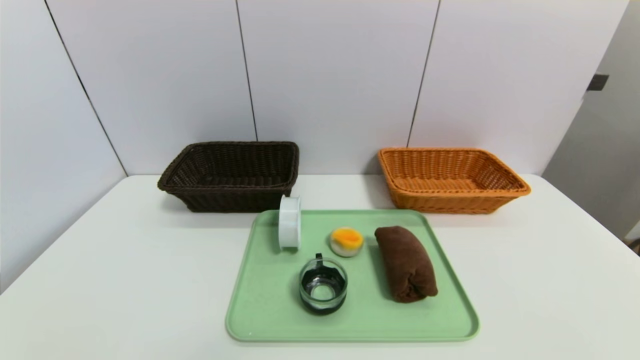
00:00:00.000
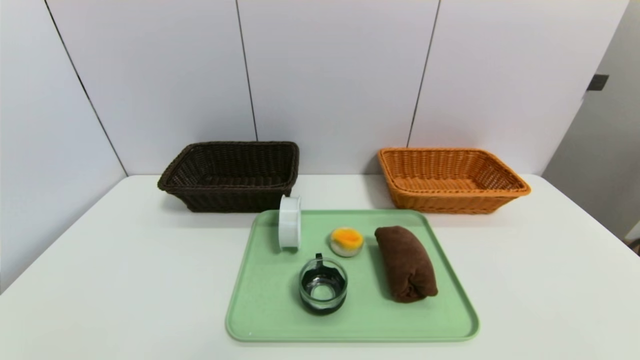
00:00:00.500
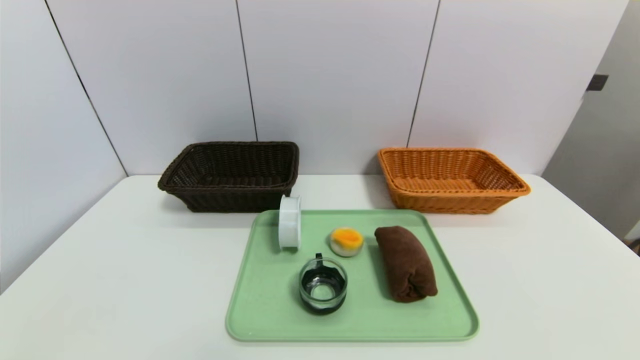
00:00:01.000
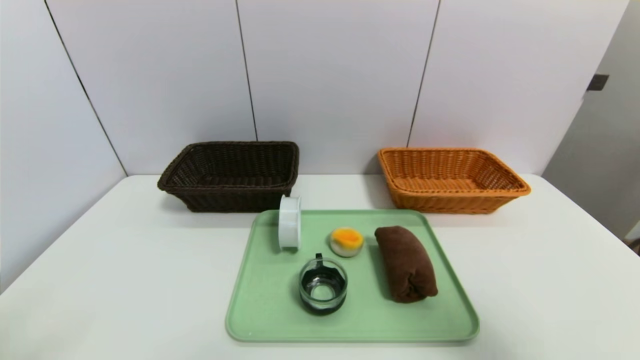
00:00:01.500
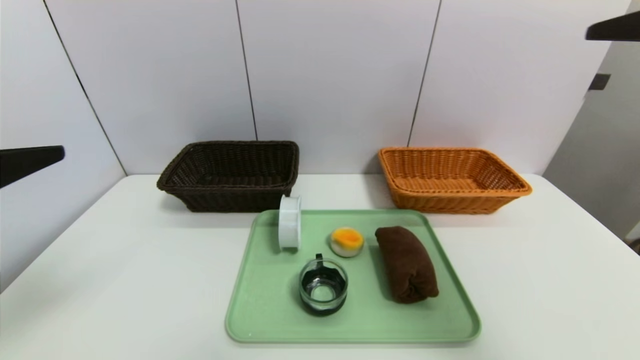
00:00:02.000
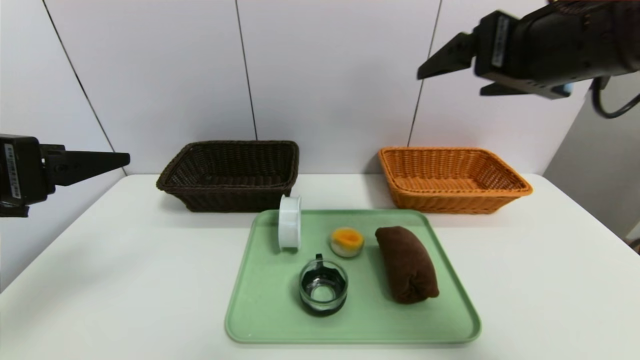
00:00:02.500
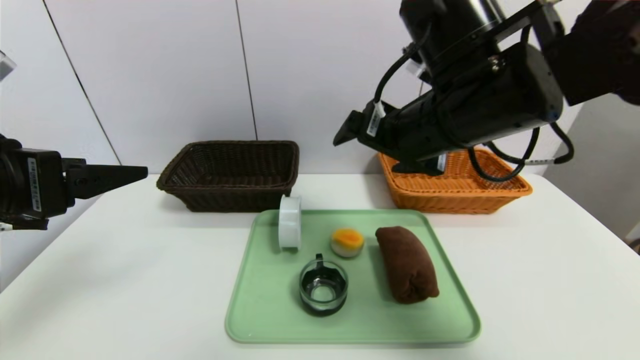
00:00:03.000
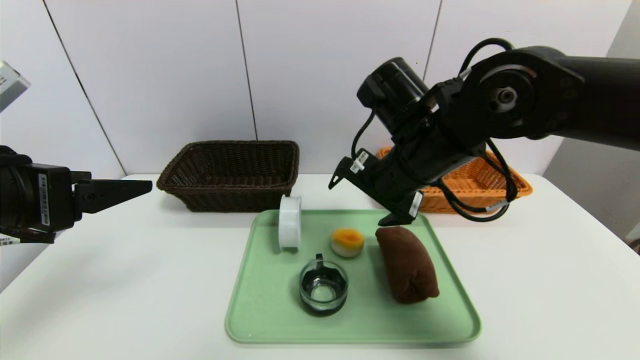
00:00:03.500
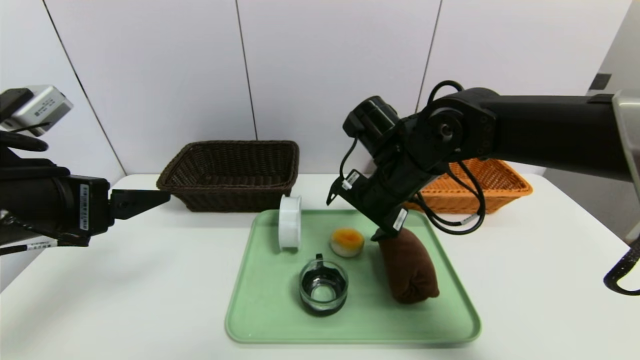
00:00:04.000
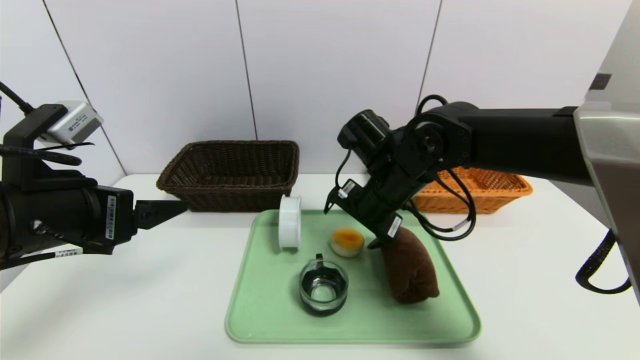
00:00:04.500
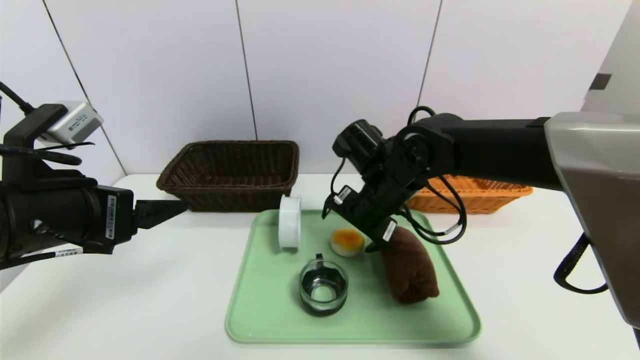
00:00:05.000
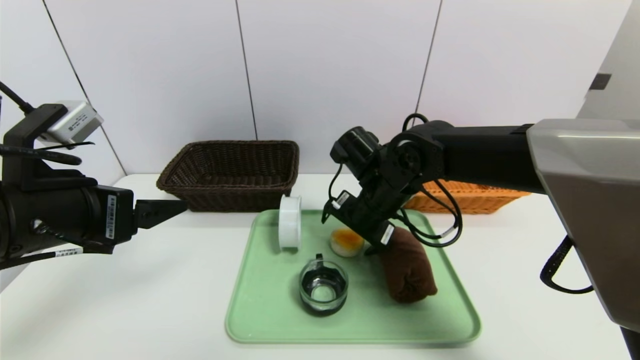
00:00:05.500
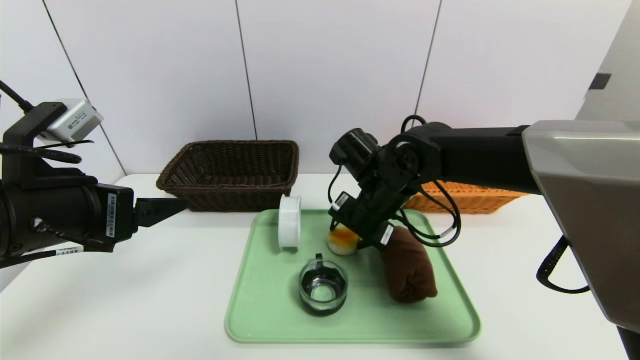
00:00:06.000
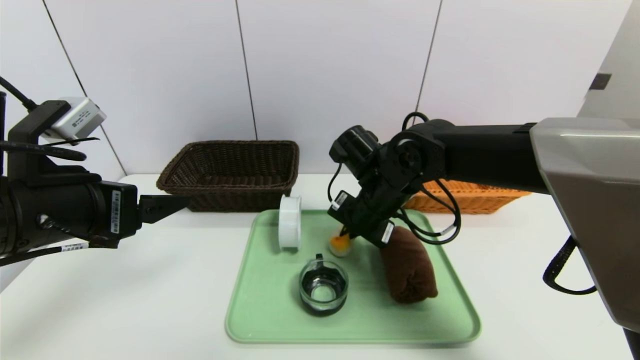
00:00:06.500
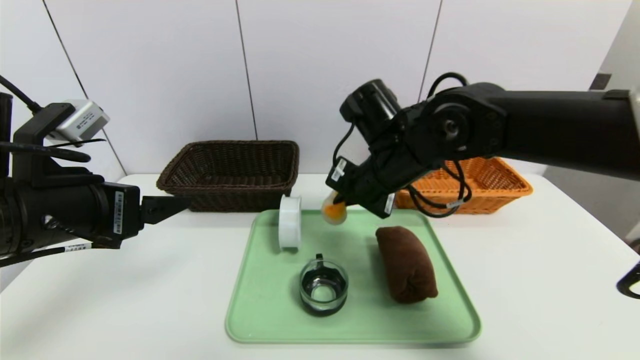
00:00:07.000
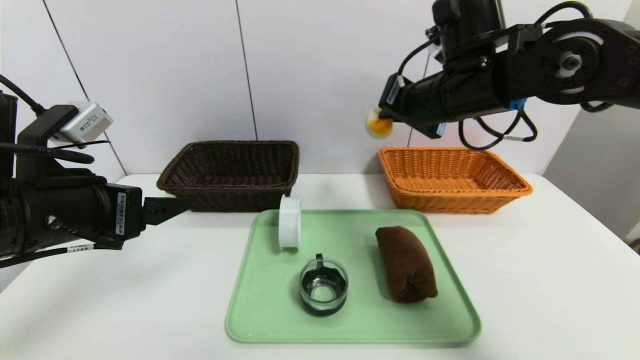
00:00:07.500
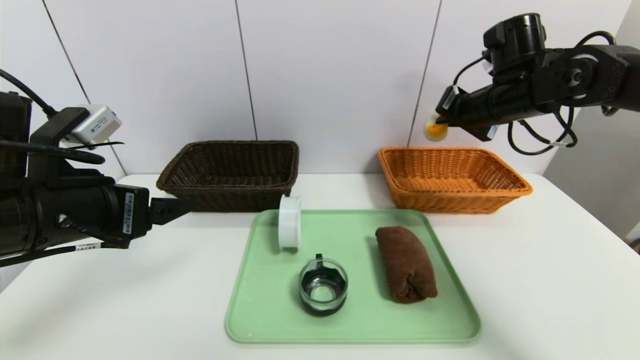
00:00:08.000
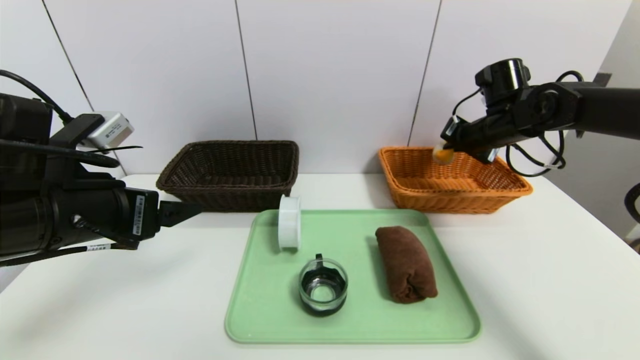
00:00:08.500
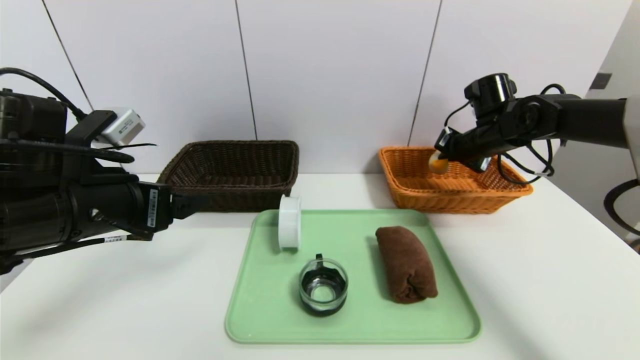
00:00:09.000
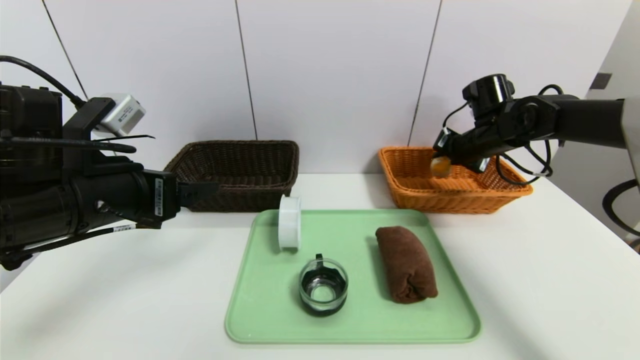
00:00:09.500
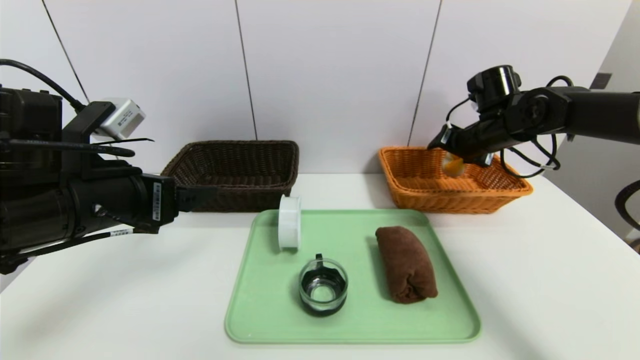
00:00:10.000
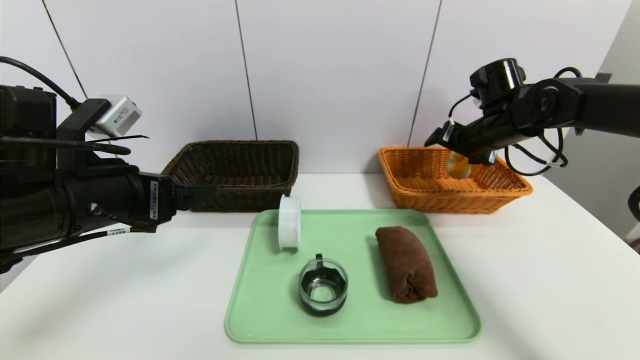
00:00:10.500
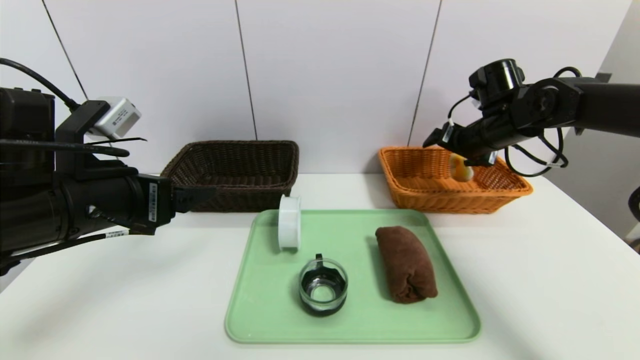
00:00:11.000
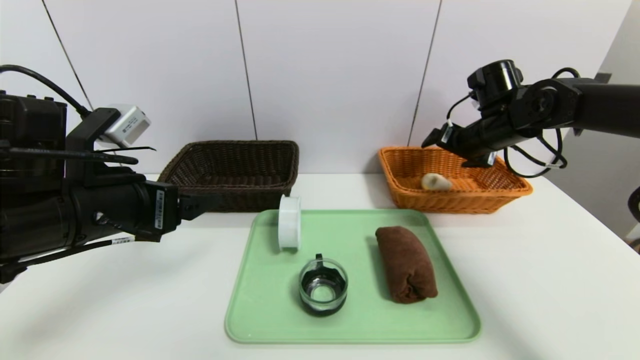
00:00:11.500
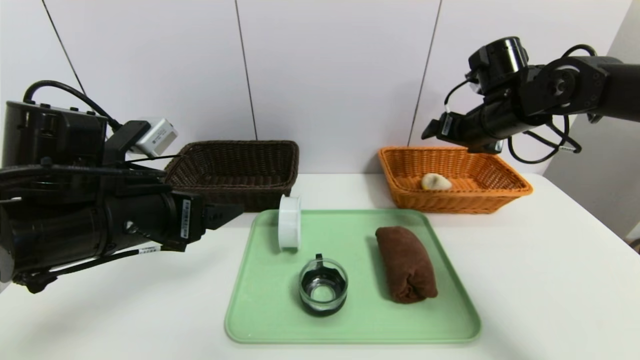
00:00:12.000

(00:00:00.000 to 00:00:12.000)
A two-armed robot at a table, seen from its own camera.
Task of the whole recording: place the food in the right basket with the right gripper, and place the non food items in the left basket with the left gripper.
Step, 00:00:00.000 - 00:00:11.500: Grasp the egg yolk pastry and put it in the right basket.
00:00:00.000 - 00:00:02.000: The grippers both shift upward and forward by about 30 cm.
00:00:02.000 - 00:00:04.000: The right gripper travels to the left, downward and forward by about 35 cm; the left gripper moves forward, about 5 cm.
00:00:04.000 - 00:00:06.000: The right gripper shifts by some 5 cm, and closes.
00:00:06.000 - 00:00:08.000: The right gripper moves to the right and upward, about 20 cm, and closes its fingers.
00:00:08.000 - 00:00:10.000: The right gripper is displaced downward by approximately 5 cm, and opens.
00:00:10.000 - 00:00:12.000: The right gripper ends up some 5 cm from where it was.

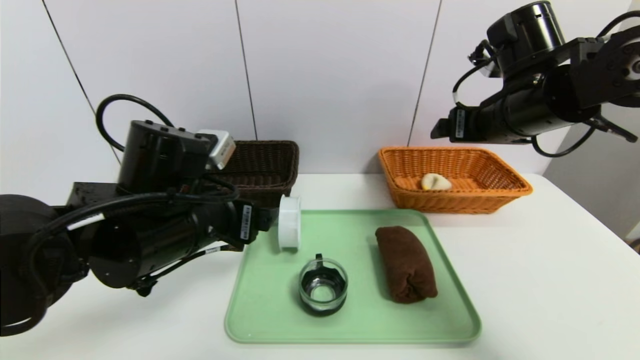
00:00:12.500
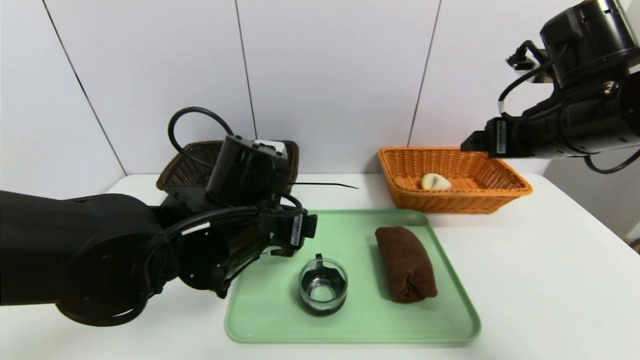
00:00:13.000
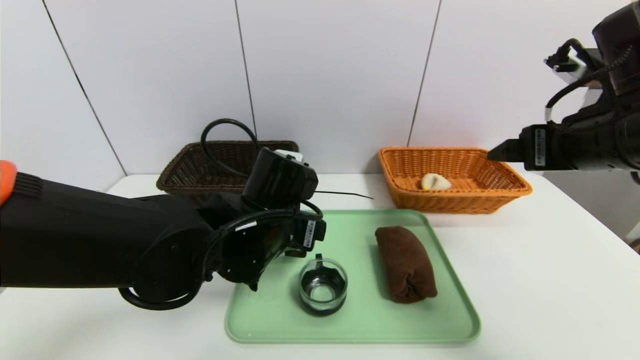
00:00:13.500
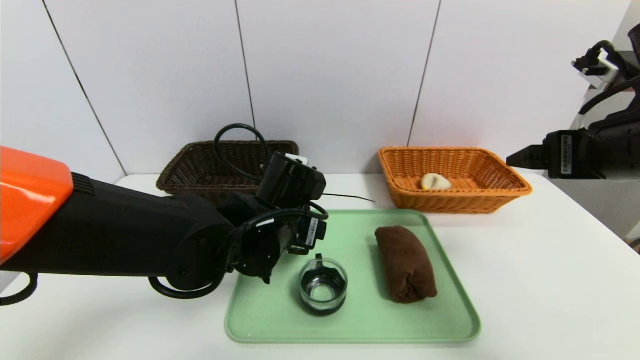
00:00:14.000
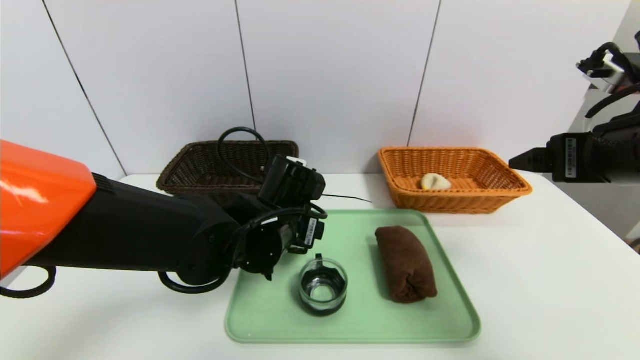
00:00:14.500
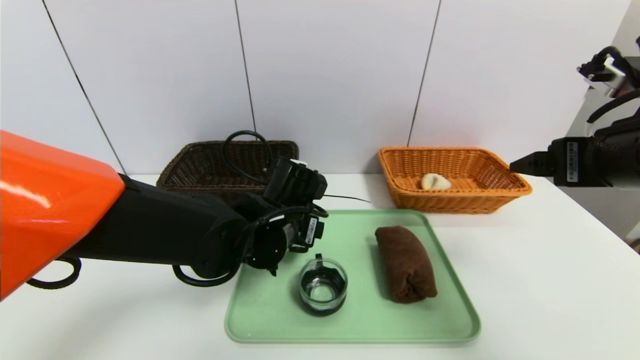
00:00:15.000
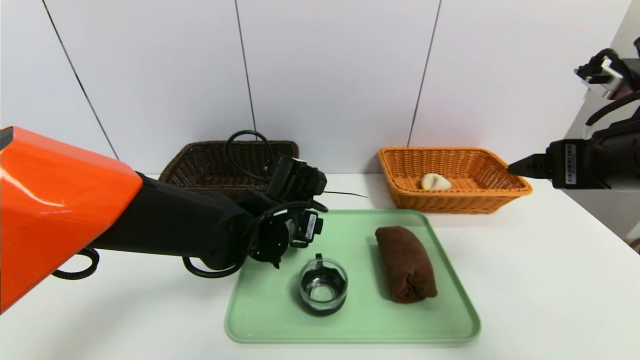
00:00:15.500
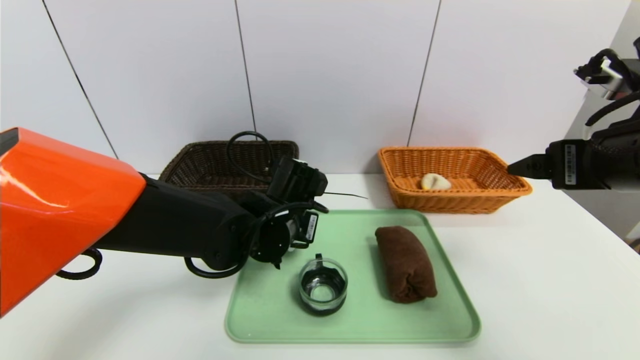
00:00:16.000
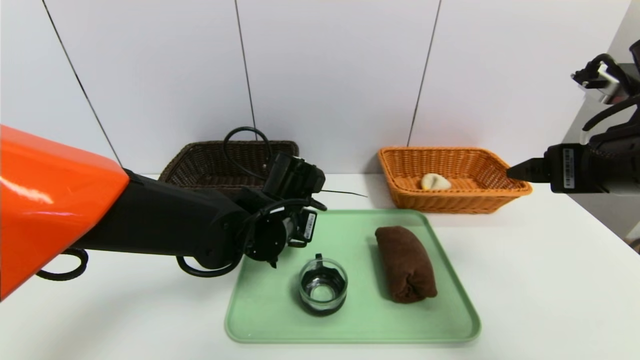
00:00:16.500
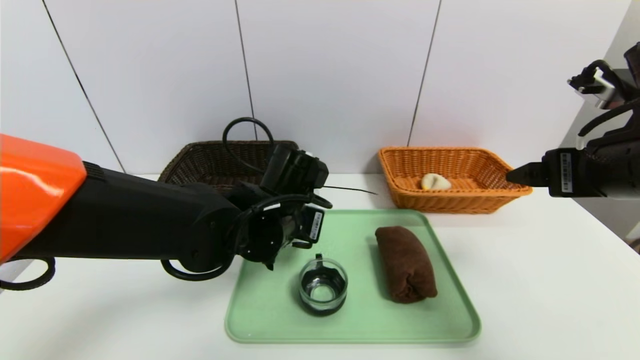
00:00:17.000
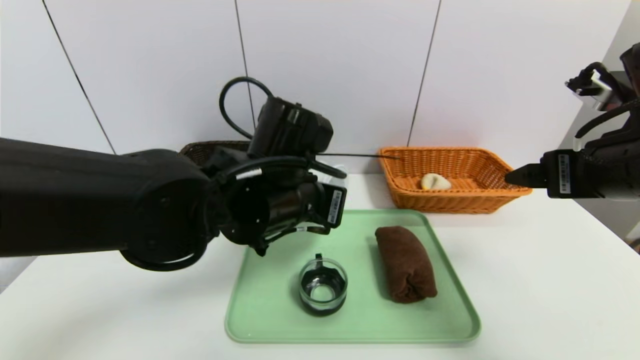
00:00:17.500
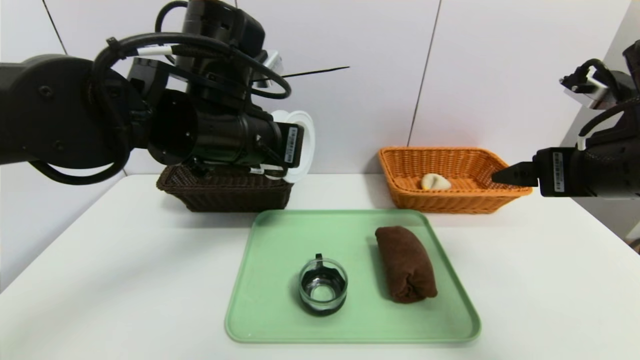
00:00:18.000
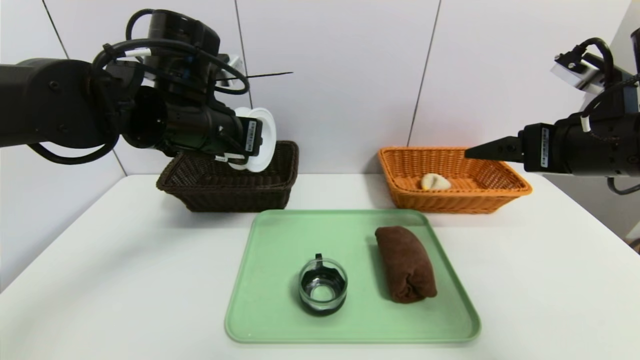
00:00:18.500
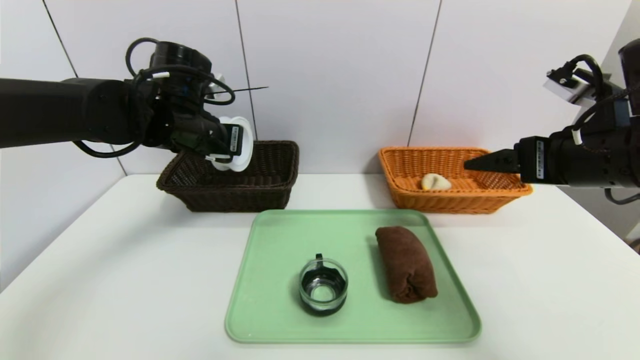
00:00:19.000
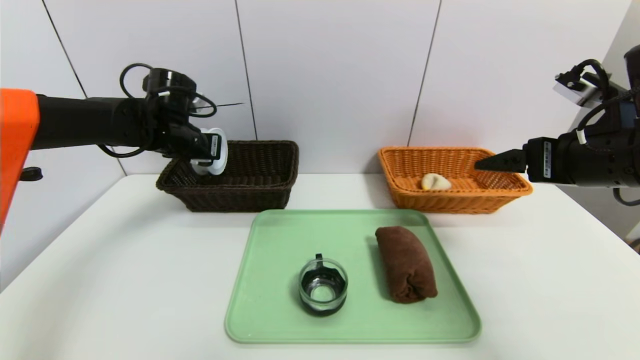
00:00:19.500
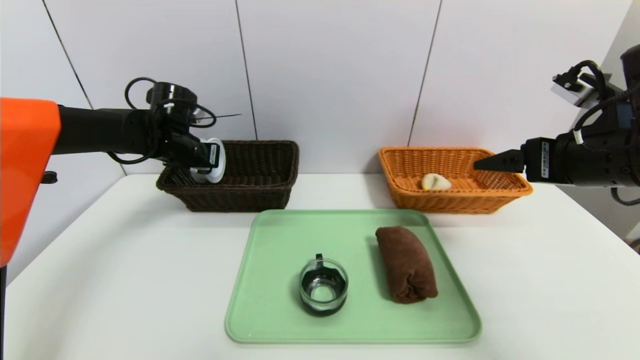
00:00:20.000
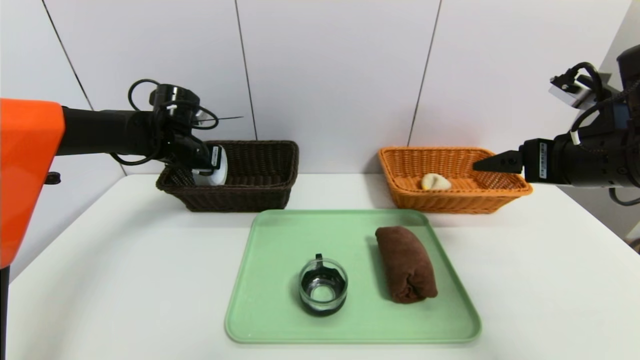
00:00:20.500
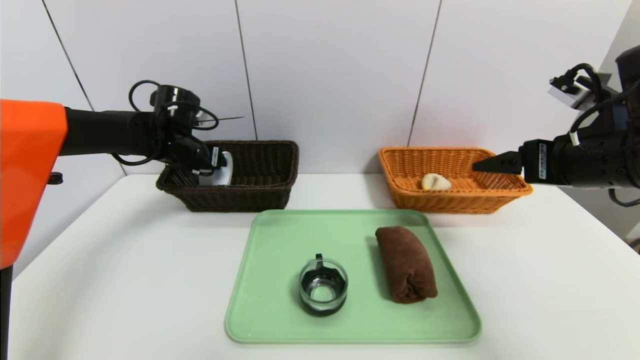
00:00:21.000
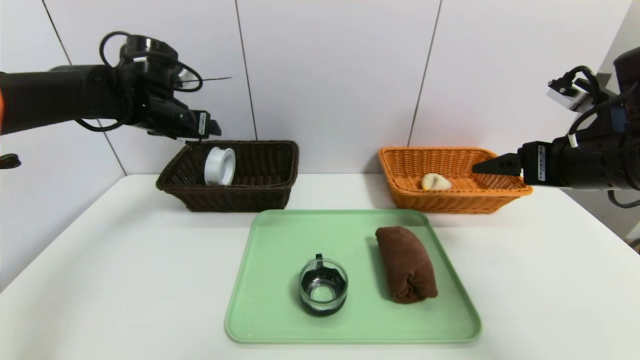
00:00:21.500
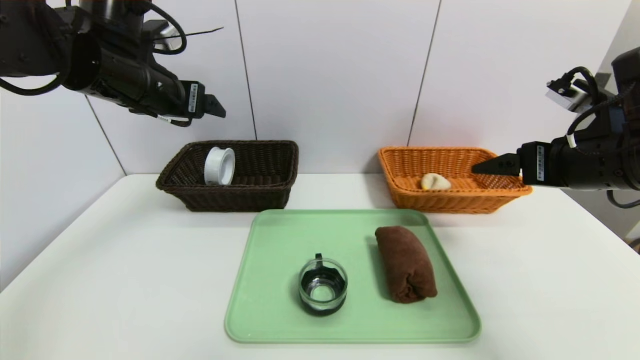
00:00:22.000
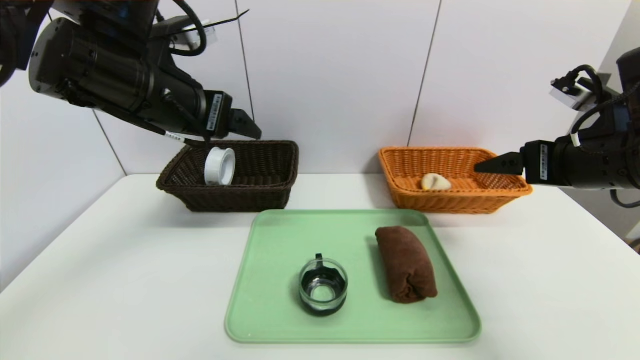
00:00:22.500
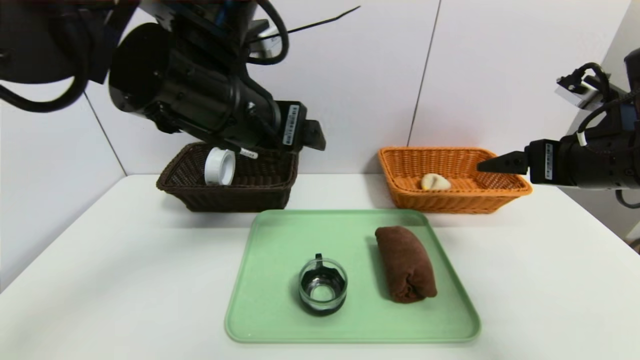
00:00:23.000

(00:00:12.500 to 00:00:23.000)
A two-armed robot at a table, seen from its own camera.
Task of the whole recording: place the food in the right basket with the right gripper, and place the non food items in the left basket with the left gripper.
Step, 00:00:12.500 - 00:00:21.000: Grasp the tape and put it in the left basket.
00:00:12.500 - 00:00:14.500: The left gripper travels to the right, forward and downward by approximately 10 cm. The right gripper heads backward, covering about 10 cm.
00:00:14.500 - 00:00:16.500: The left gripper closes its fingers.
00:00:16.500 - 00:00:19.000: The left gripper travels to the left, upward and forward by approximately 20 cm.
00:00:19.000 - 00:00:21.000: The left gripper travels forward, to the left and downward by some 10 cm, and opens up.
00:00:21.000 - 00:00:23.000: The left gripper is displaced backward, to the right and upward by roughly 30 cm.
